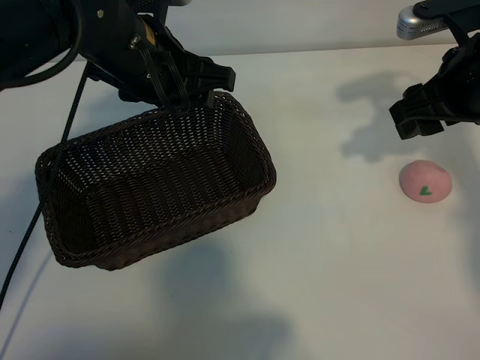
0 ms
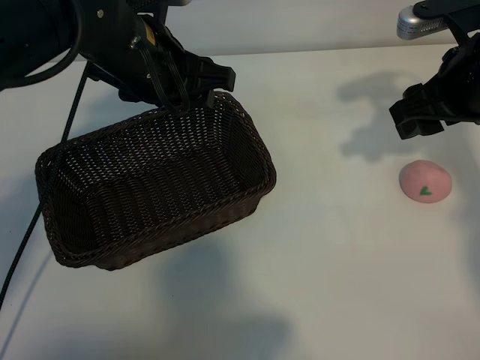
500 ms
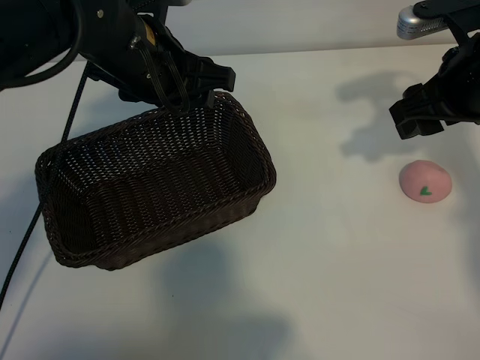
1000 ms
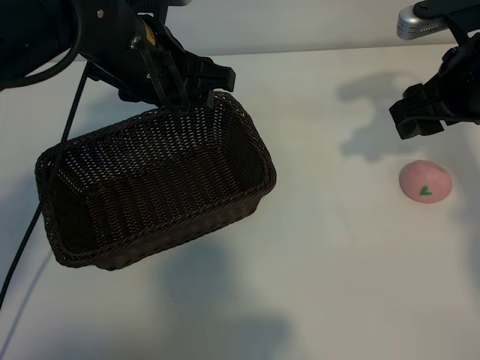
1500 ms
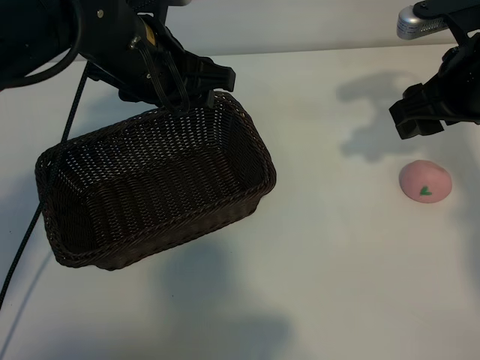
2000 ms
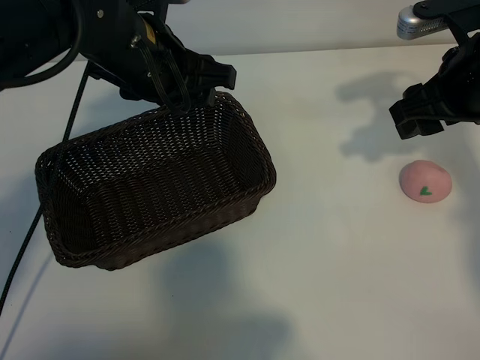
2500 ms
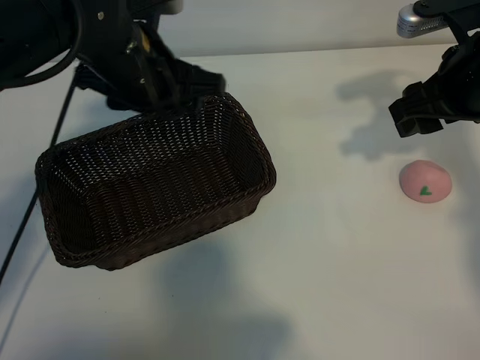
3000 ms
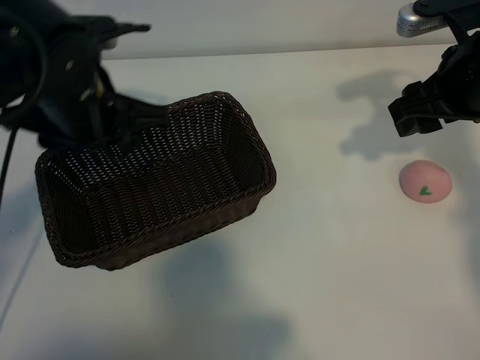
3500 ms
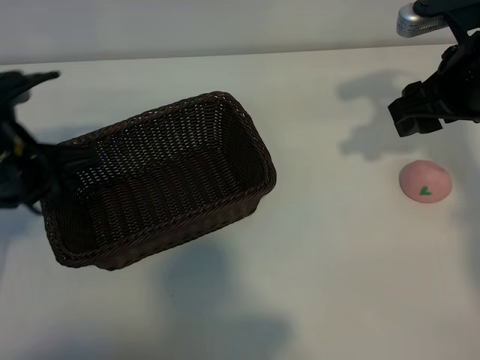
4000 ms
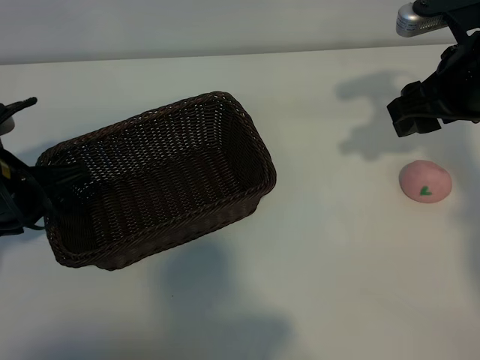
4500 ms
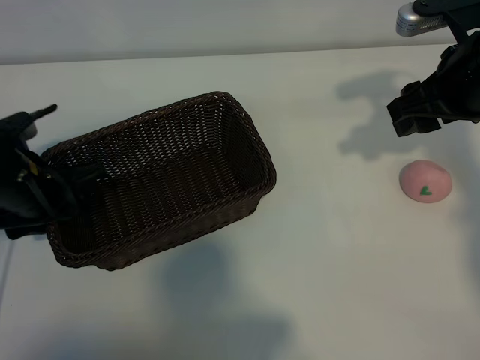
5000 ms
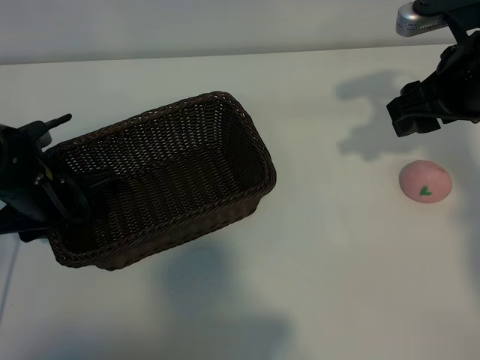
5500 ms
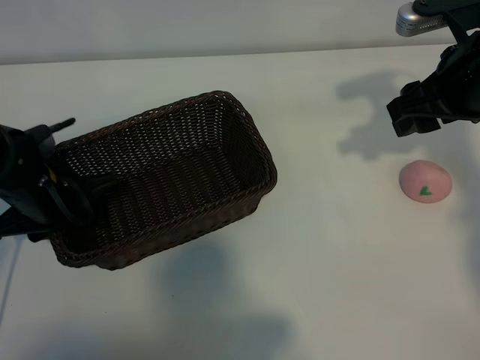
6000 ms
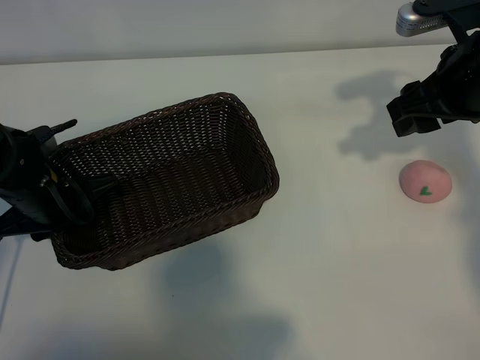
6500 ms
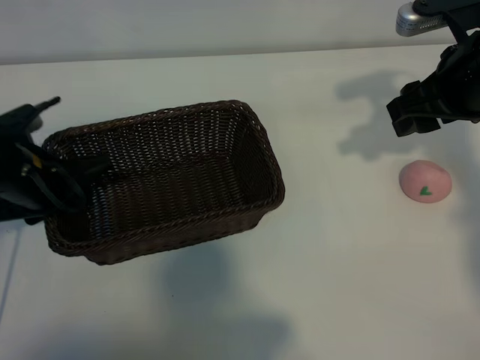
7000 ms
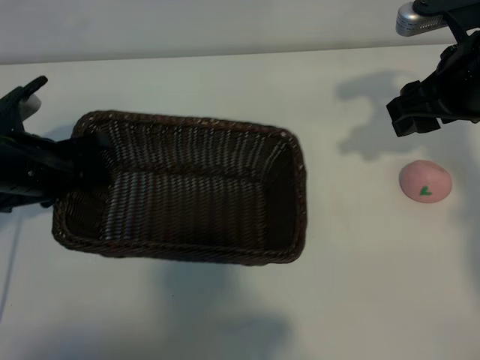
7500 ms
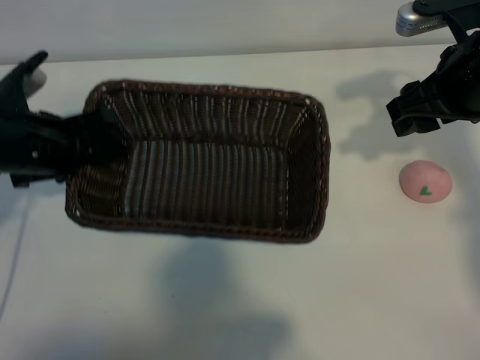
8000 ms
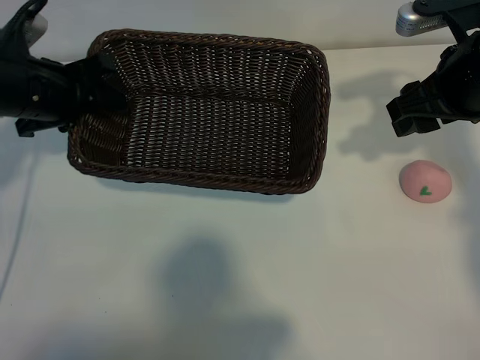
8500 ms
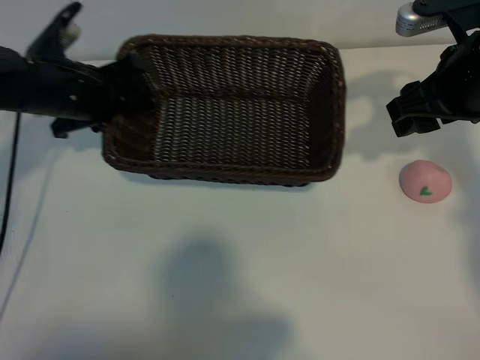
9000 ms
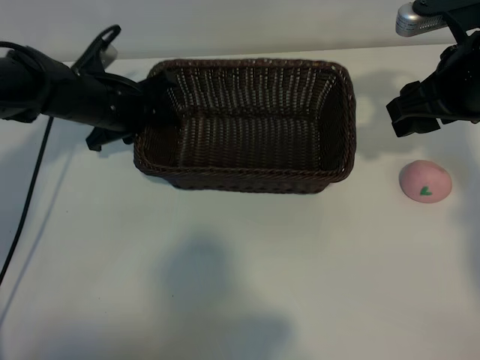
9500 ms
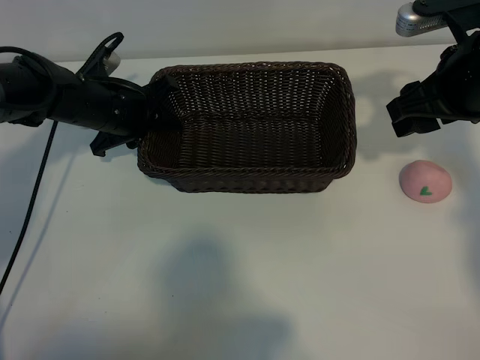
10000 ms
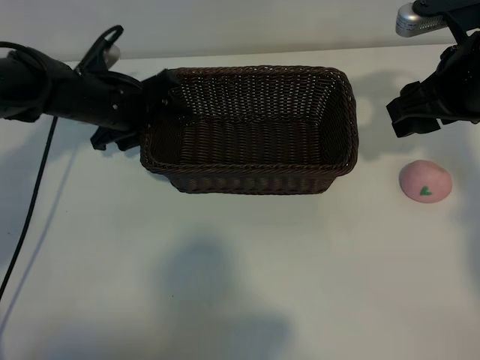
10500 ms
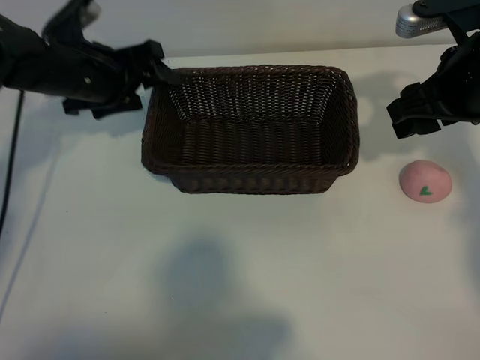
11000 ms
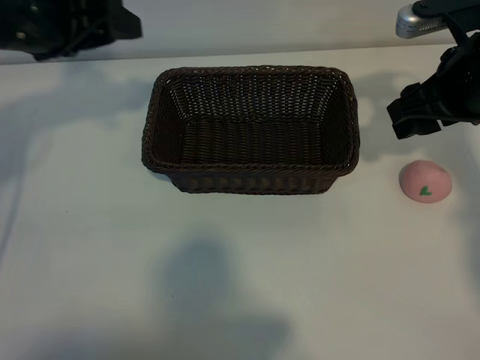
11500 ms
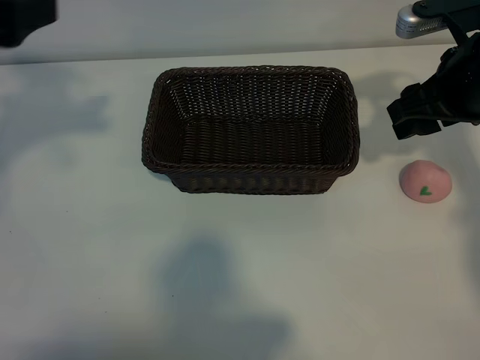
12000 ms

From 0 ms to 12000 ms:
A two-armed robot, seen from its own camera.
Task of the whole recording: pick up the peach and put it into the basket.
Step, from 2500 ms to 6500 ms: Grasp the basket with left gripper.
Step, from 7000 ms to 11000 ms: Place the basket in the center of view with left gripper.

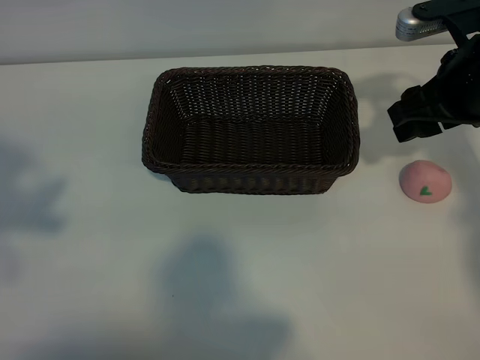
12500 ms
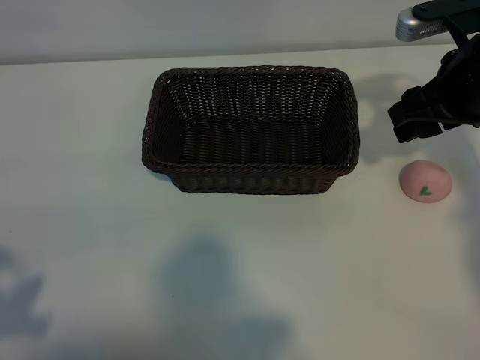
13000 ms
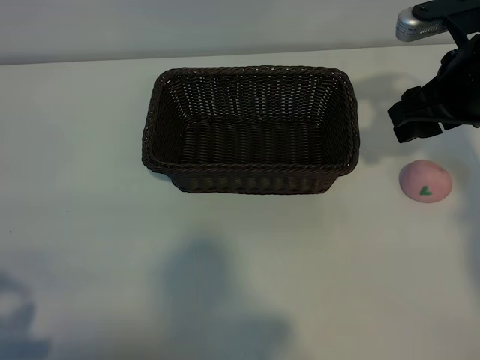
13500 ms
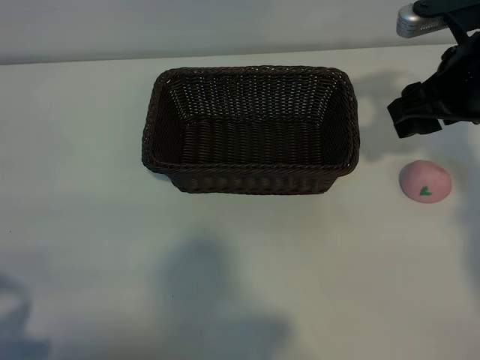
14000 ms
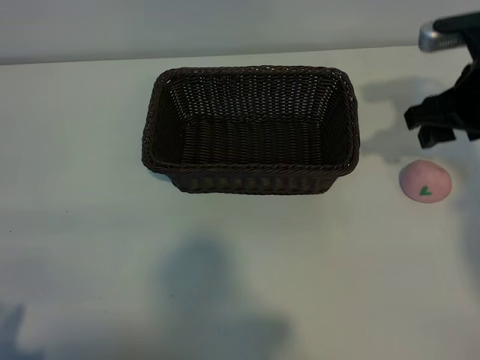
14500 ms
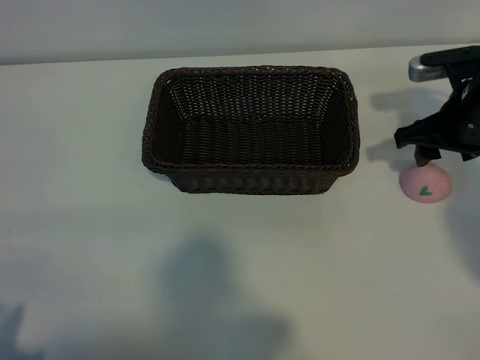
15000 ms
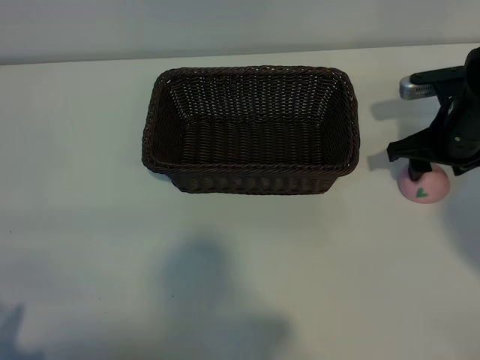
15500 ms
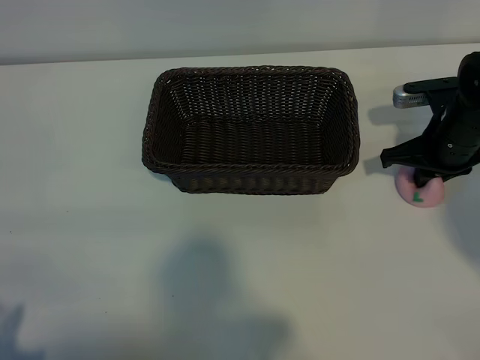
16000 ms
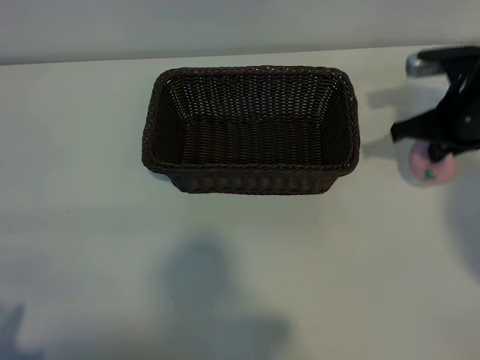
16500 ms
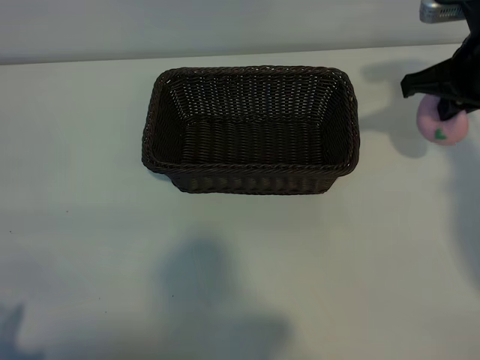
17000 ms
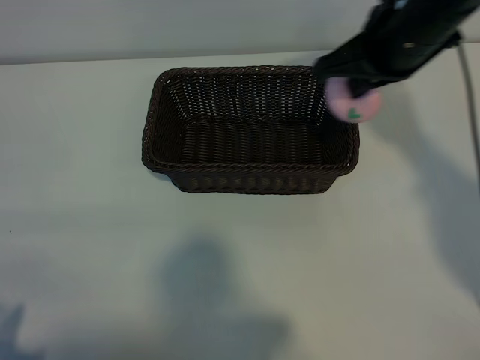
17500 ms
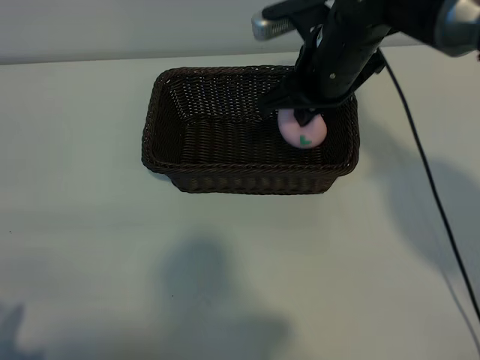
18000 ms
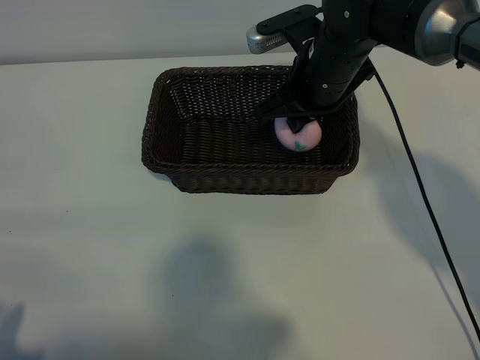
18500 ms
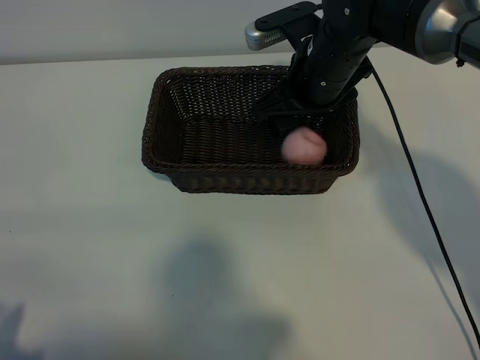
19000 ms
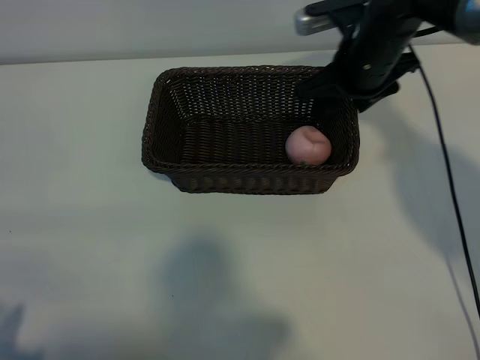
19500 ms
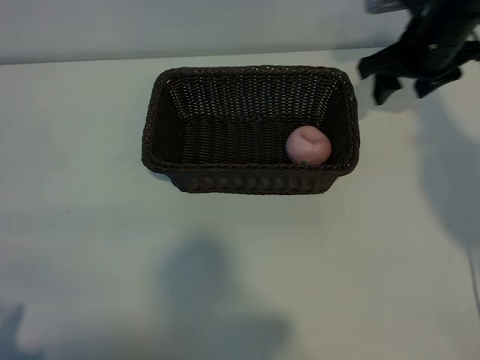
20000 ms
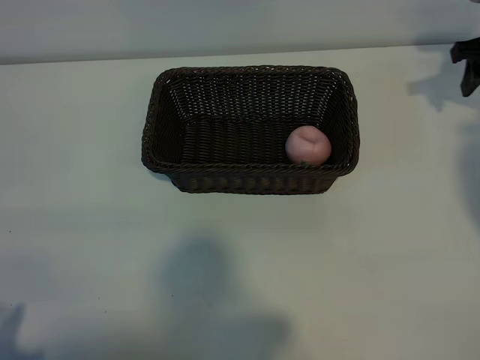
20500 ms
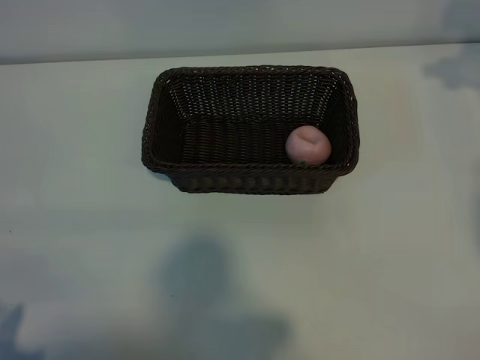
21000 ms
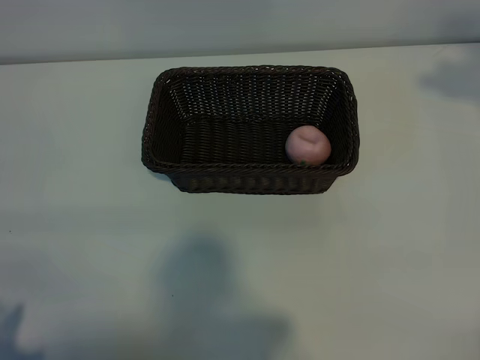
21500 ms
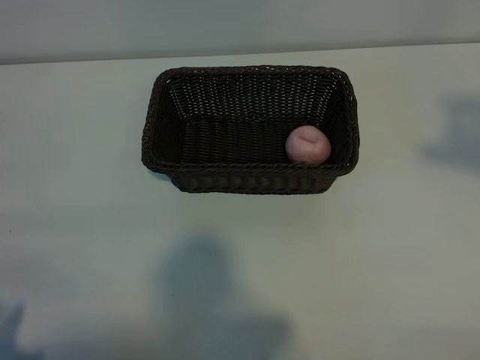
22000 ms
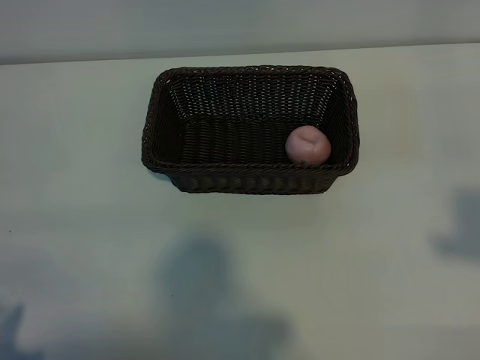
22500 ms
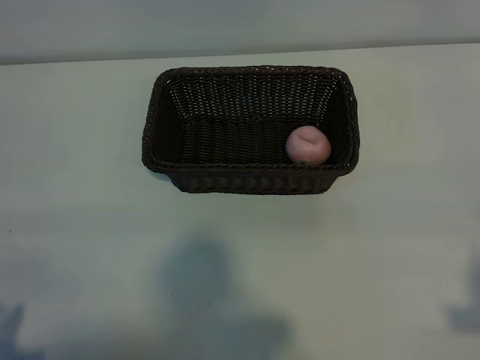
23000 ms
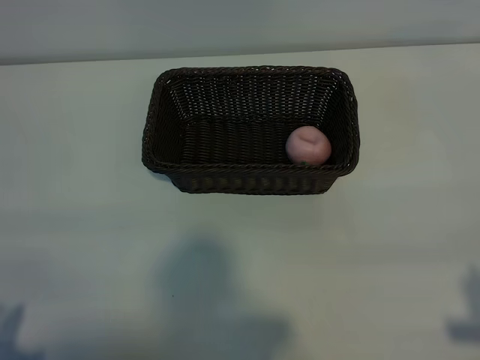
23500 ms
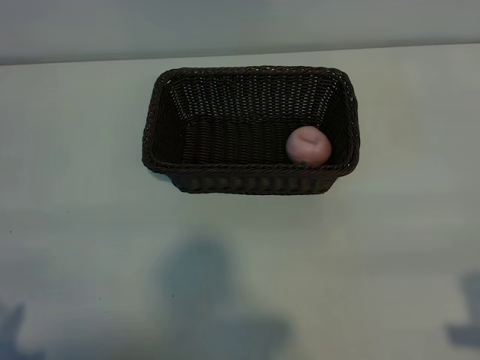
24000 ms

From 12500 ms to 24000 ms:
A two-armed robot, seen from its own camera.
Task of the whole recording: pick up the peach and put it into the basket.
Step, from 12500 ms to 16000 ms: Grasp the peach with right gripper.
Step, from 16500 ms to 18500 ms: Place the peach in the basket with right gripper.

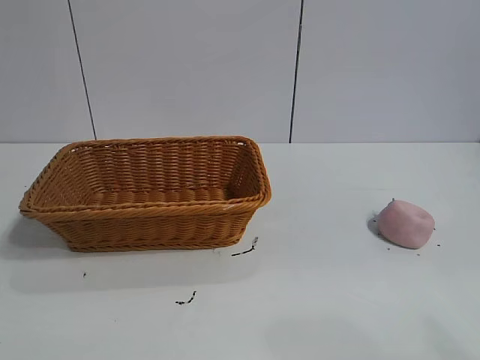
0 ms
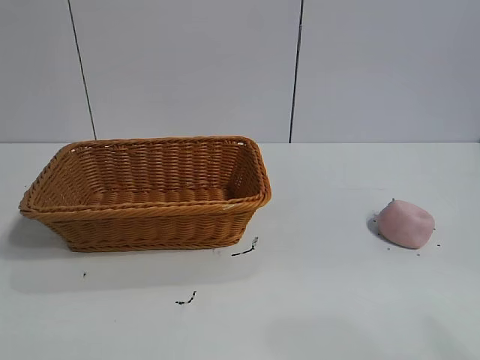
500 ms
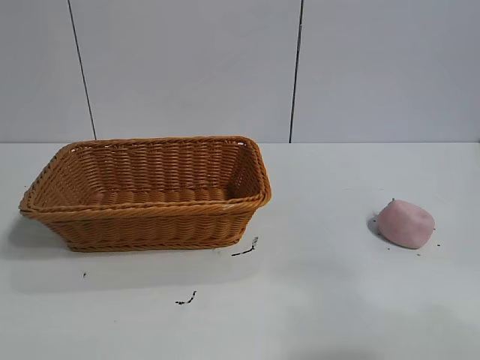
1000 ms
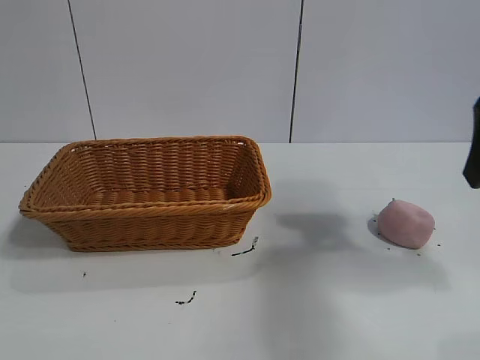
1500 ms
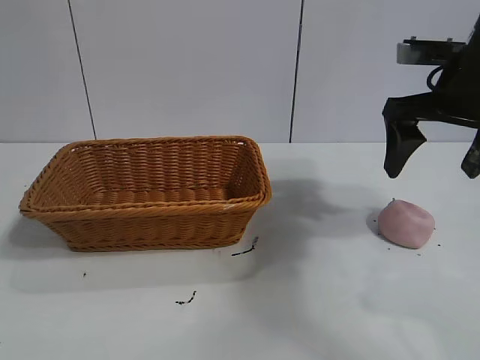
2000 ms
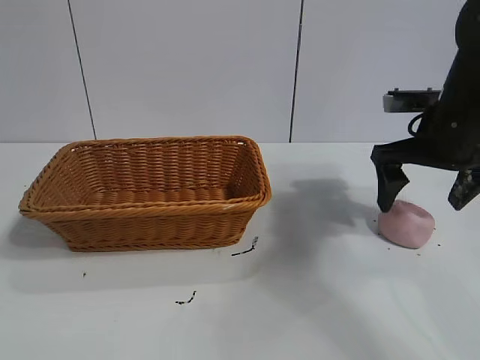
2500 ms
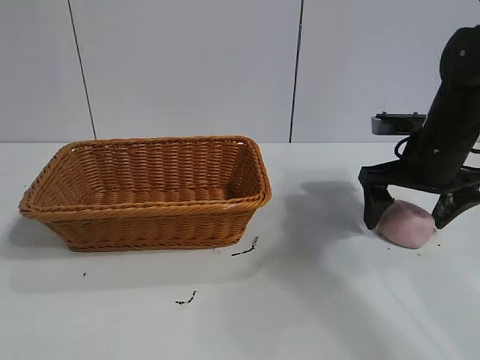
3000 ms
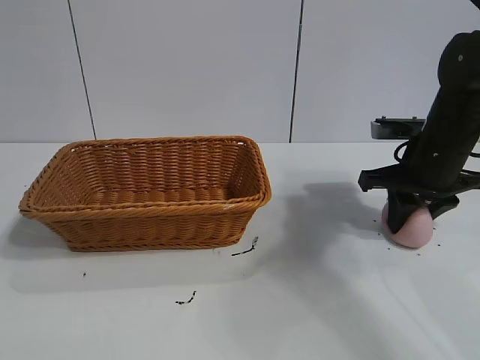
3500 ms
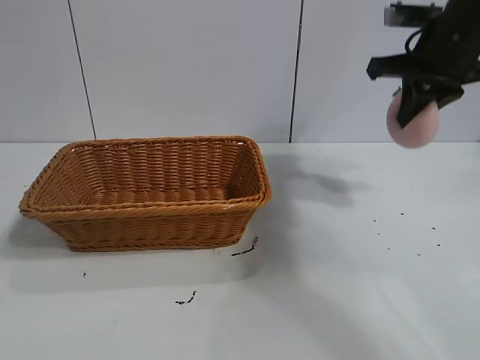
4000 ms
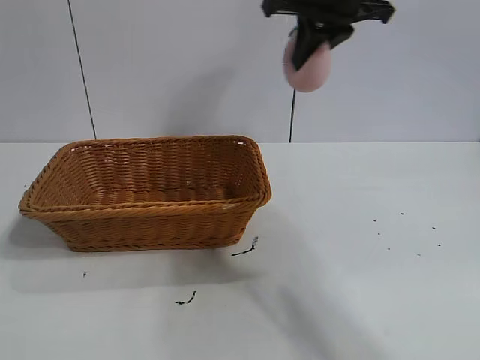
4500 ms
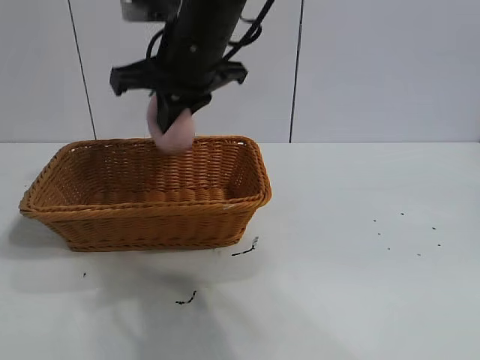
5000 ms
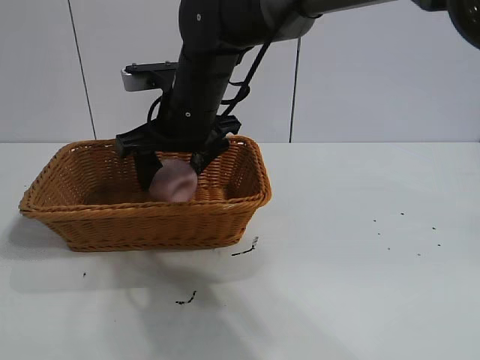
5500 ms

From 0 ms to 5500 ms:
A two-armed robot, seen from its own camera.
Task of the whole recording: pick up the peach and put it into the basket.
Step, from 1000 ms to 3500 ms: Grasp the peach with right gripper.
Step, from 4000 ms to 5500 ms: Place the peach in the basket with right gripper.
